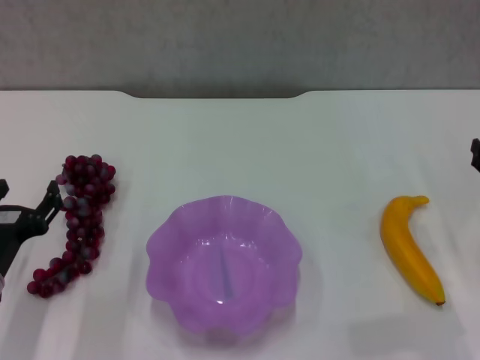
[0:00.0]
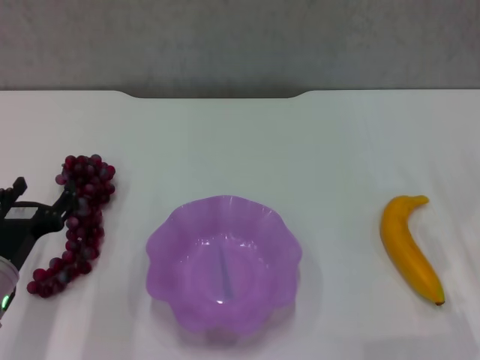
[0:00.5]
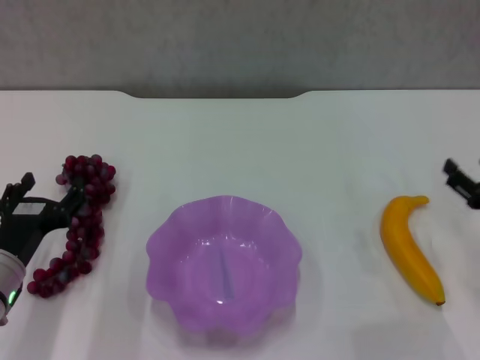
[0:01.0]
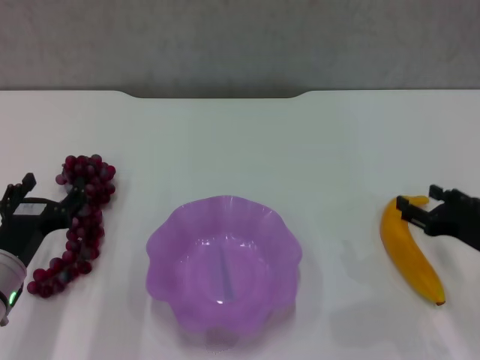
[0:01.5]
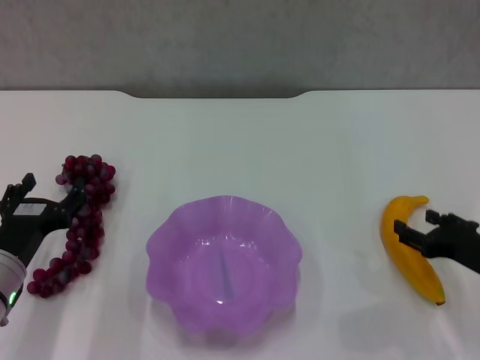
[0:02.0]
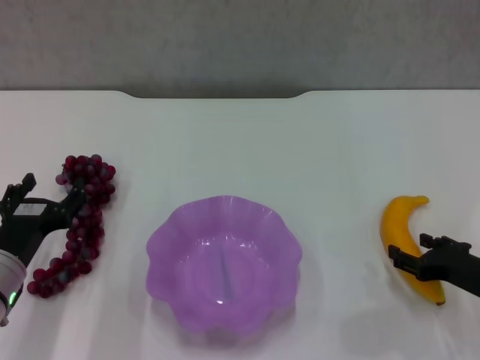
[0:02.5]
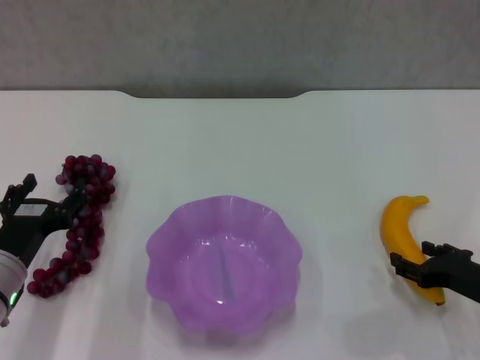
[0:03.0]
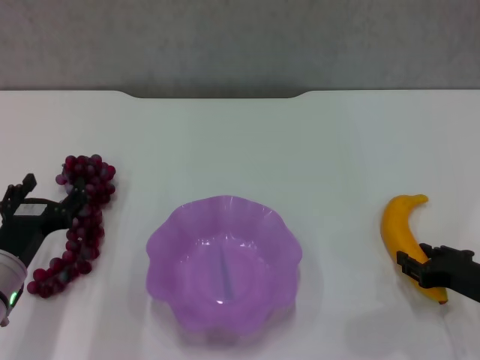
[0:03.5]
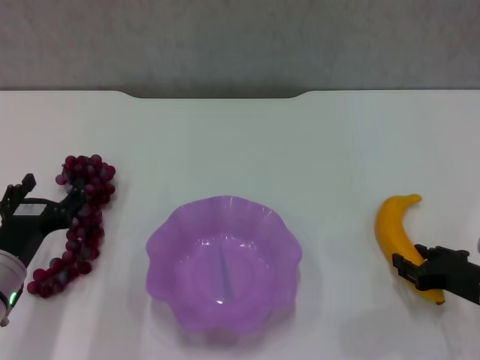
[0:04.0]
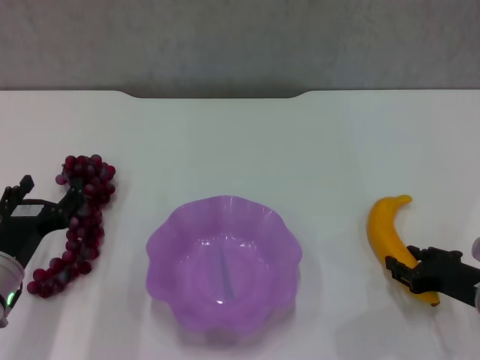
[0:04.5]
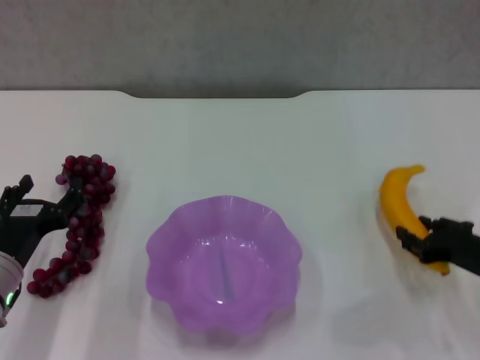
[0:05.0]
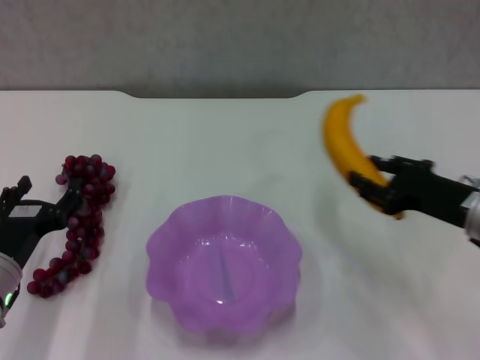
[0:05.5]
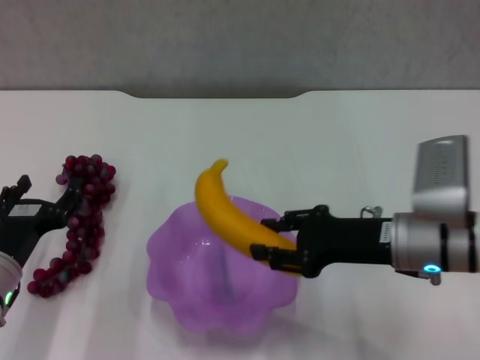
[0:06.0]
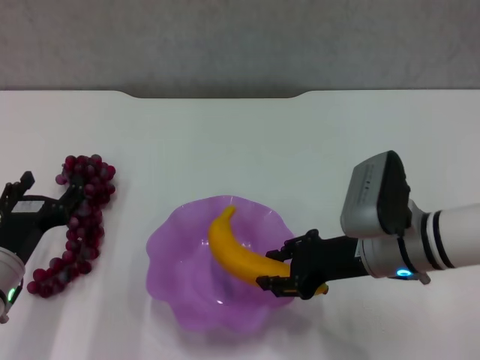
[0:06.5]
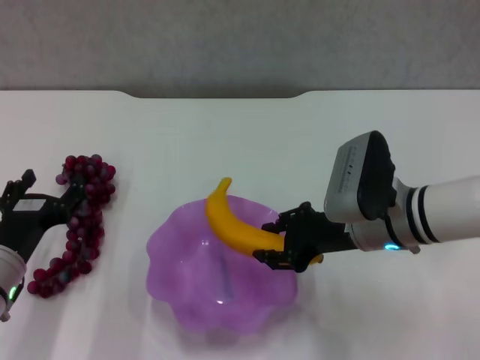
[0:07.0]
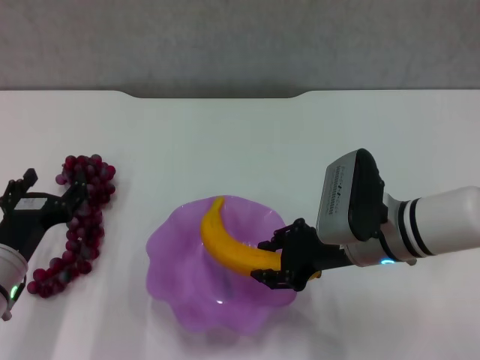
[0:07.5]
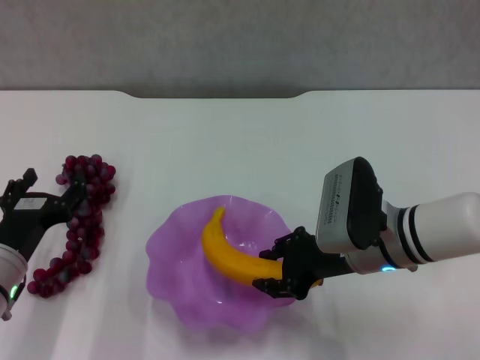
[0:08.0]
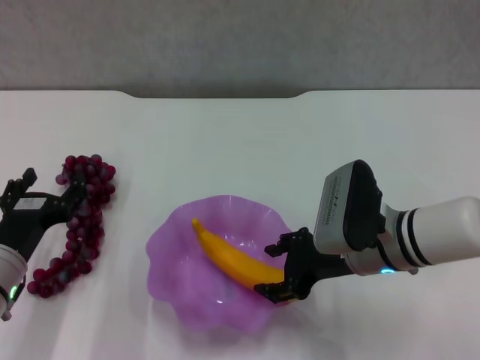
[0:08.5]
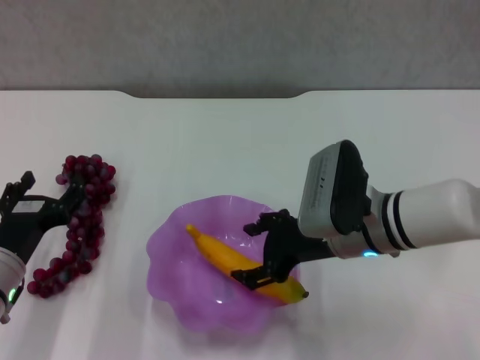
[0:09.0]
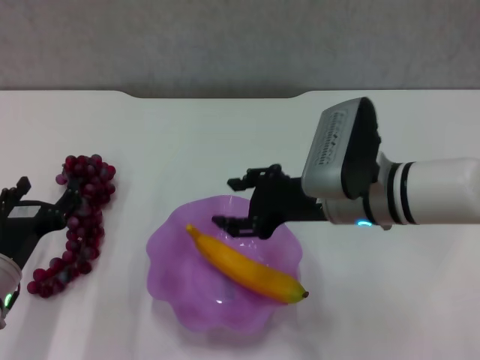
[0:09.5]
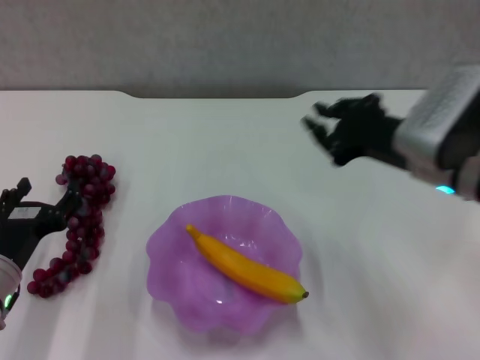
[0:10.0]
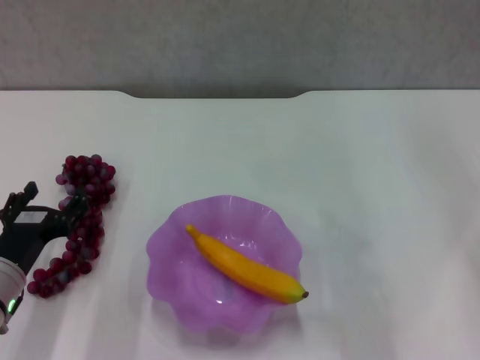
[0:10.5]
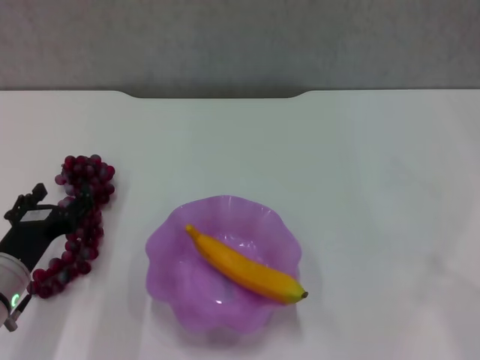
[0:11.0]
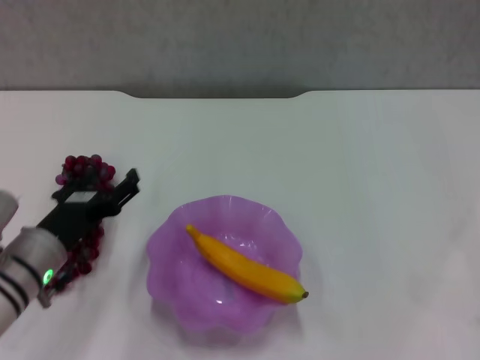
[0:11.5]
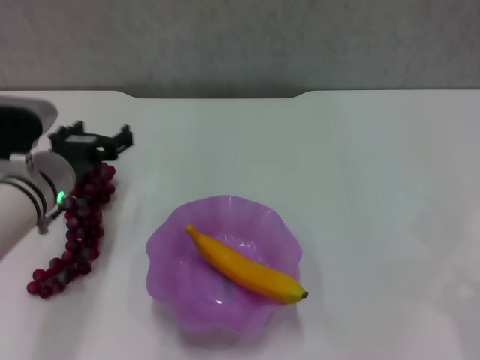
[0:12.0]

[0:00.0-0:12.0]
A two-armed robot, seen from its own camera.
Step, 0:00.0 to 0:03.5: Grasp the banana with right gripper.
Step, 0:04.0 to 0:09.0: Place the banana in the purple plate with right gripper.
0:00.0 to 0:02.0: The right gripper changes place by about 5 cm.
0:02.0 to 0:04.0: The grippers make only small movements.
0:04.0 to 0:06.0: The right gripper moves to the left and upward, approximately 15 cm.
0:06.0 to 0:08.0: The right gripper changes place by some 5 cm.
0:08.0 to 0:10.0: The right gripper moves upward, about 10 cm.
0:10.0 to 0:12.0: The right gripper travels to the right, backward and downward by roughly 25 cm, and closes, while the left gripper moves forward and upward, roughly 10 cm.

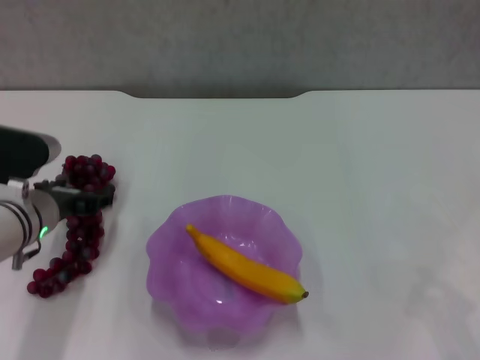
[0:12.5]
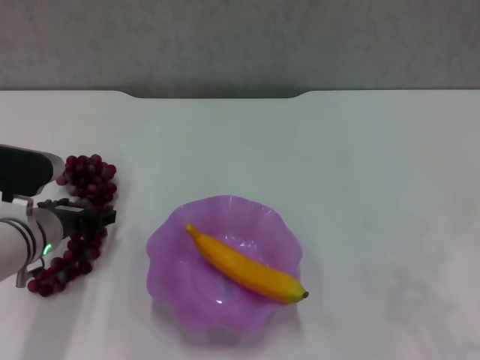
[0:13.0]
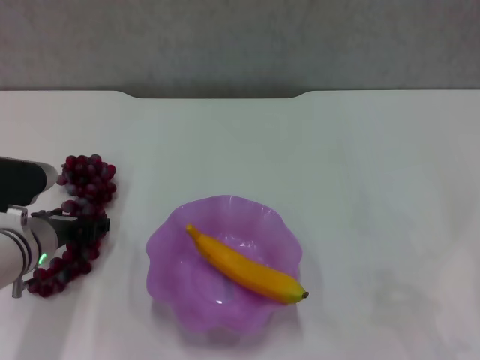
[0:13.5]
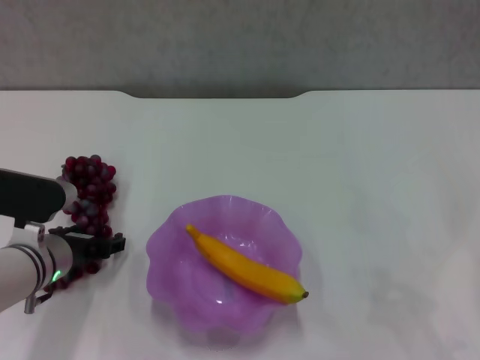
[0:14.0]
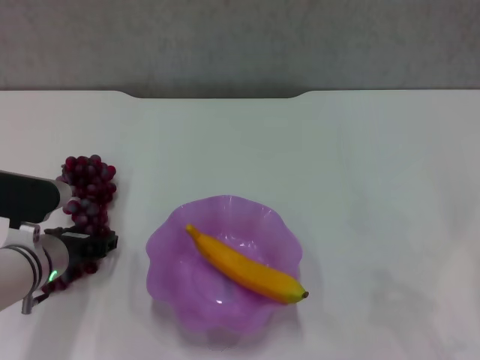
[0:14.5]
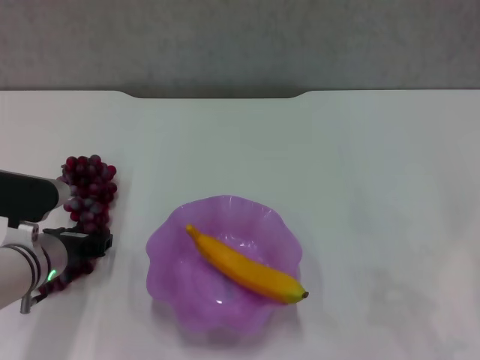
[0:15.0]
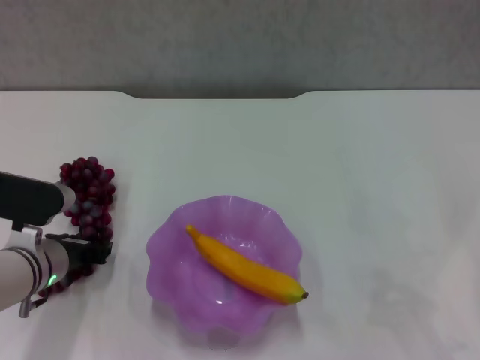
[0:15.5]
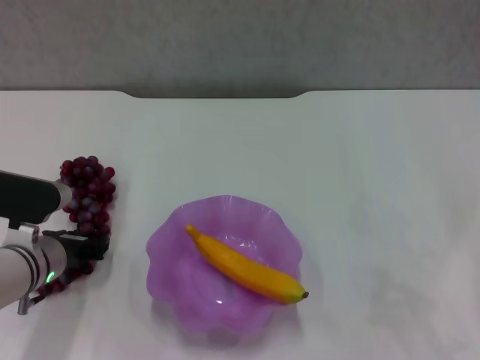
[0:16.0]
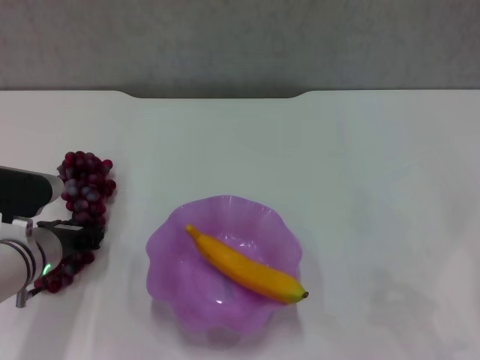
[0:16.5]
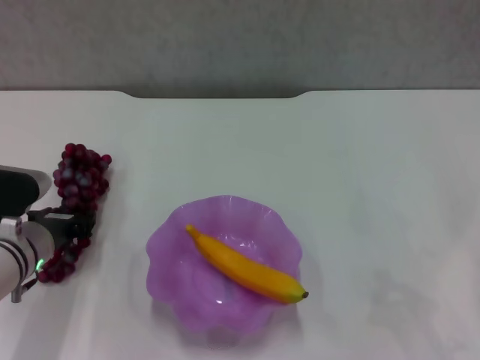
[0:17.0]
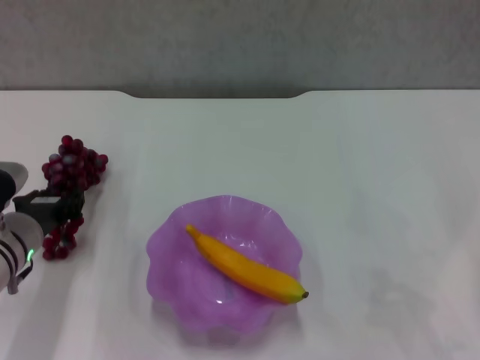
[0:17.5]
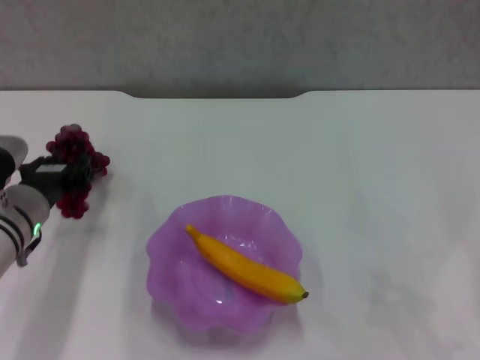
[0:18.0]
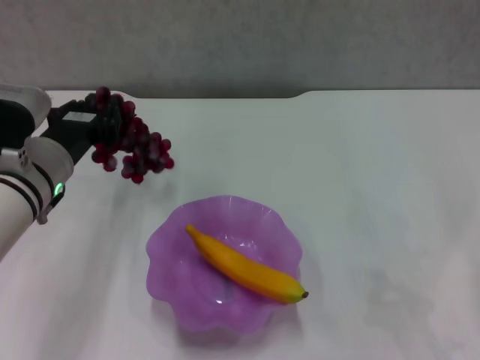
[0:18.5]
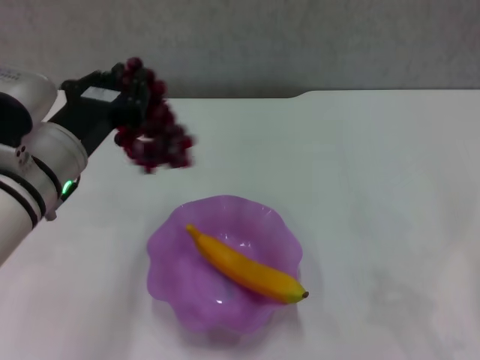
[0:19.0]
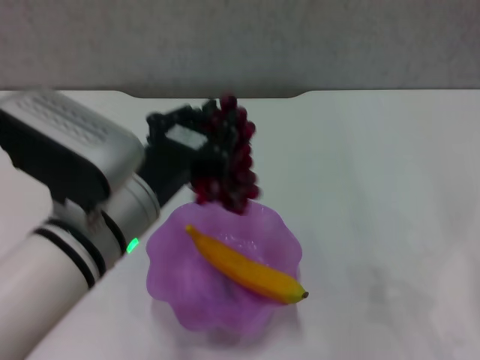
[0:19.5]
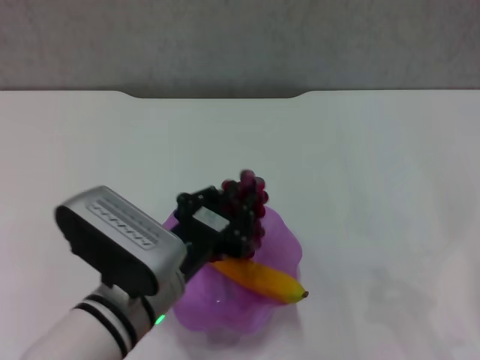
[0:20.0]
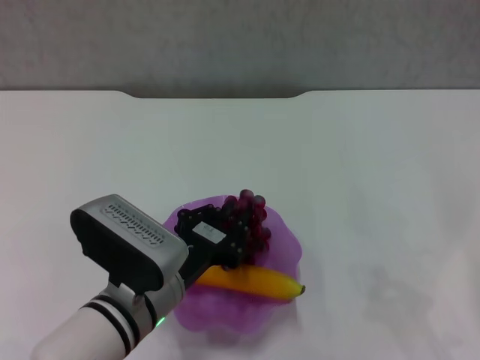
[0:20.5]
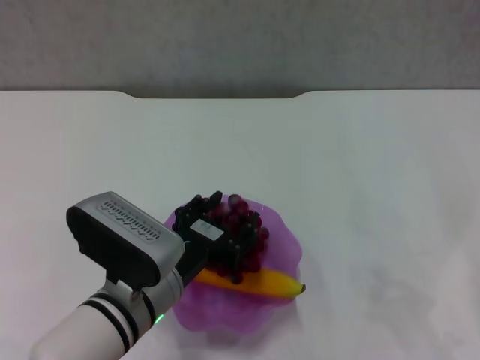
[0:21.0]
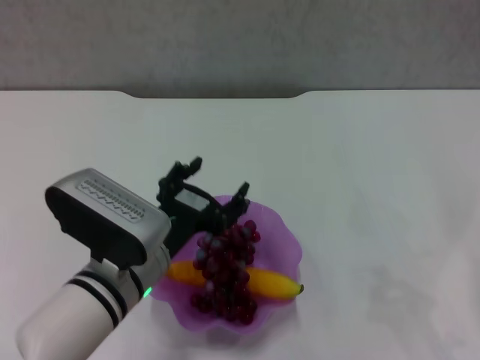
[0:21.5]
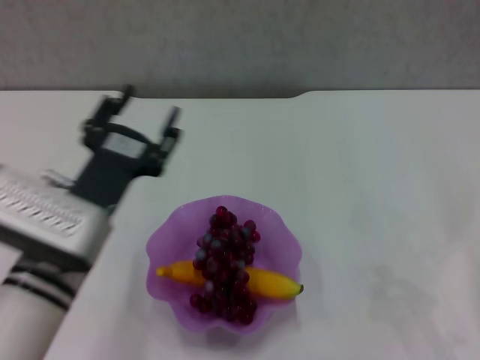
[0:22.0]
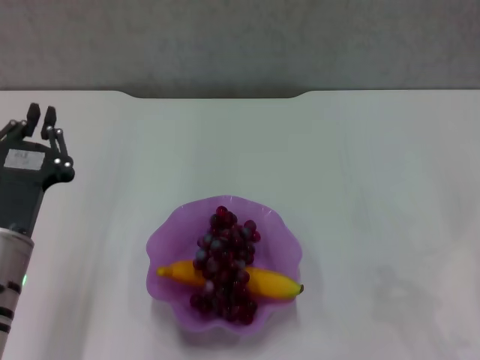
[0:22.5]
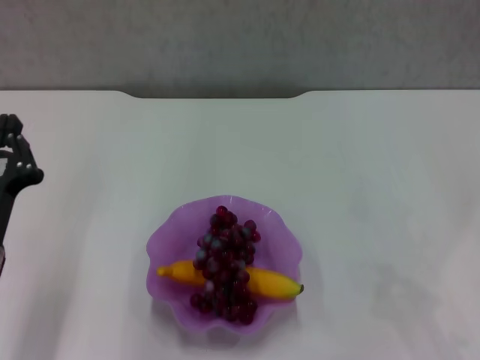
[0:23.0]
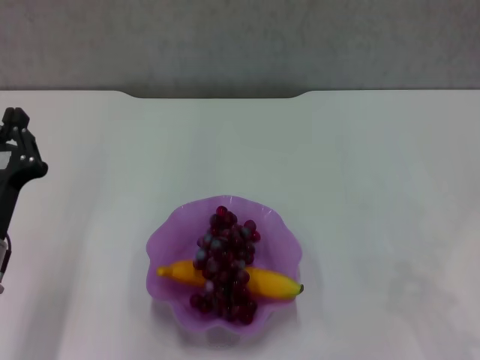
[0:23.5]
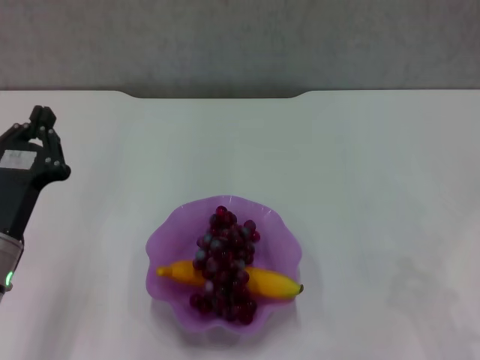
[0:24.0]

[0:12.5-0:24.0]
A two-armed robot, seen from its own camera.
Step, 0:12.5 to 0:15.5: Grasp the grape with left gripper.
Step, 0:16.0 to 0:21.5: Place the grape in the purple plate with left gripper.
0:12.5 to 0:14.5: There are only small adjustments of the grippers.
0:14.5 to 0:16.5: The left gripper closes up.
0:16.5 to 0:18.5: The left gripper goes about 10 cm upward.
0:18.5 to 0:20.0: The left gripper travels backward and to the right by roughly 15 cm.
0:20.0 to 0:22.0: The left gripper shifts some 5 cm to the left, and opens.
0:22.0 to 0:24.0: The left gripper travels to the left by approximately 10 cm, and closes its fingers.
